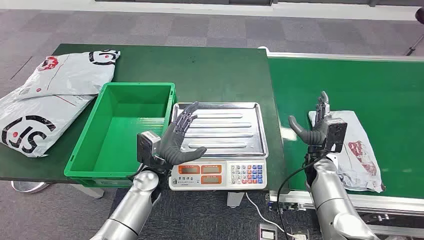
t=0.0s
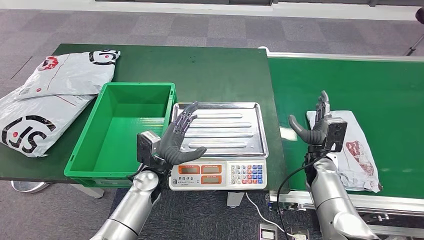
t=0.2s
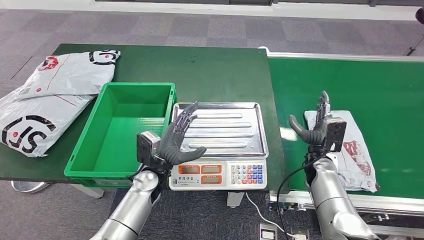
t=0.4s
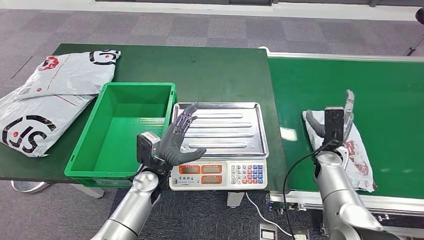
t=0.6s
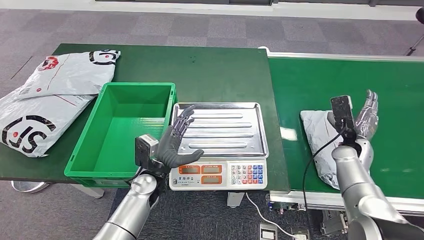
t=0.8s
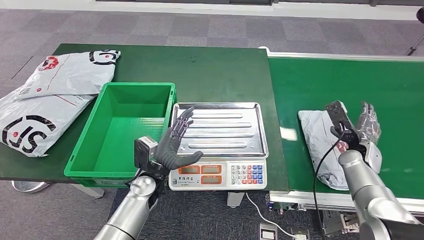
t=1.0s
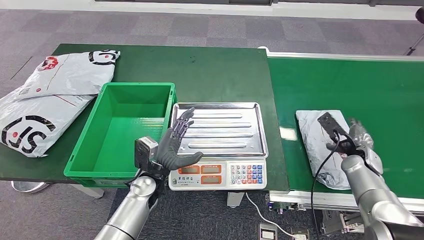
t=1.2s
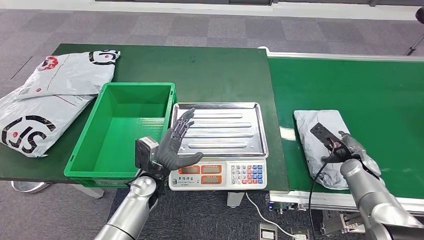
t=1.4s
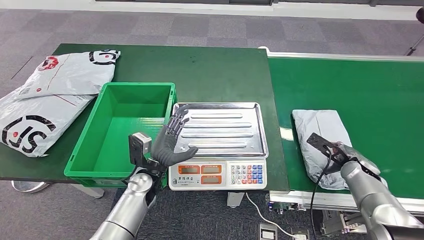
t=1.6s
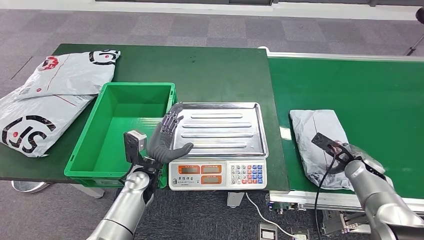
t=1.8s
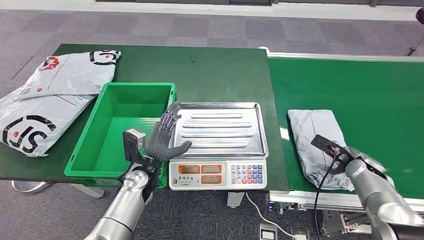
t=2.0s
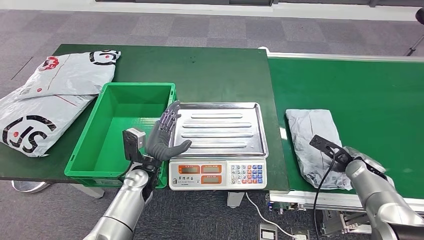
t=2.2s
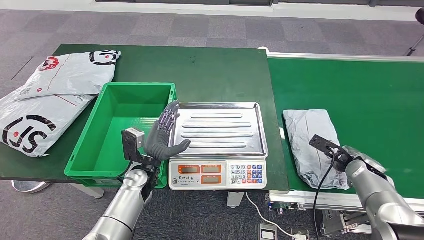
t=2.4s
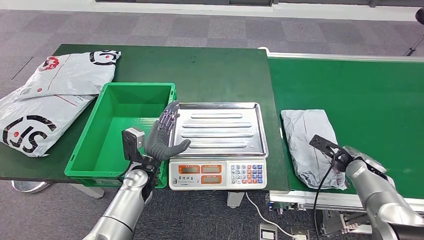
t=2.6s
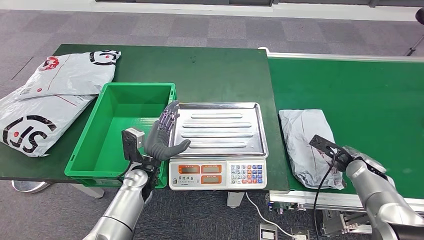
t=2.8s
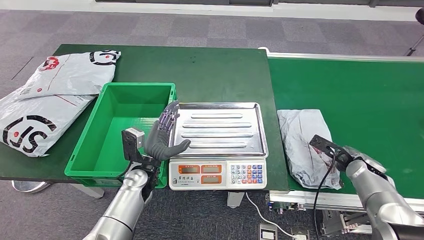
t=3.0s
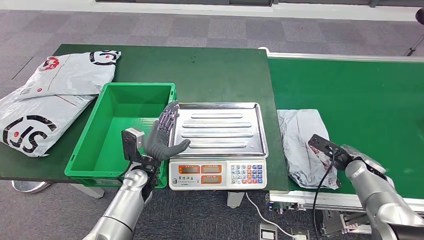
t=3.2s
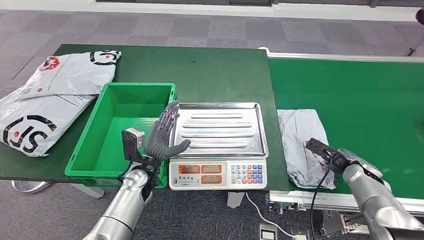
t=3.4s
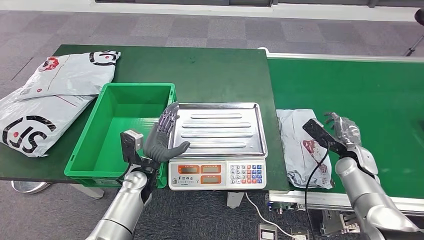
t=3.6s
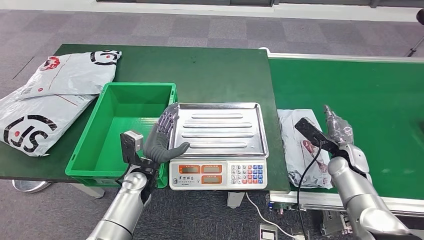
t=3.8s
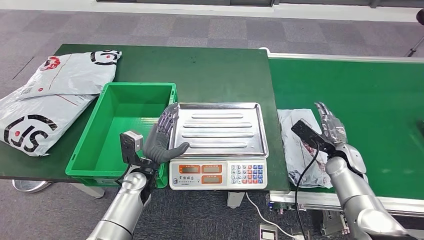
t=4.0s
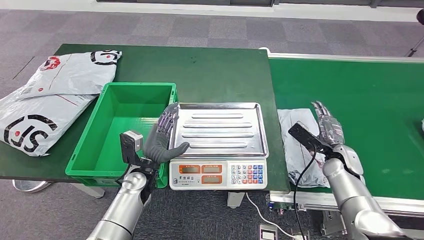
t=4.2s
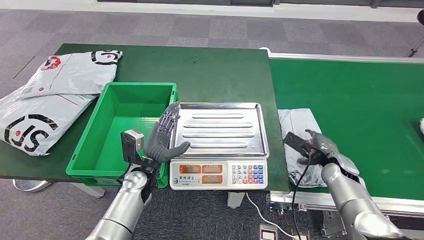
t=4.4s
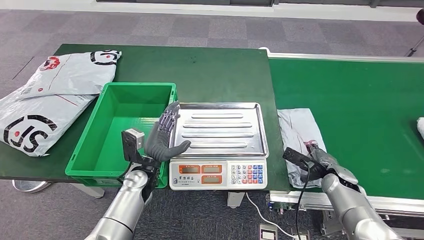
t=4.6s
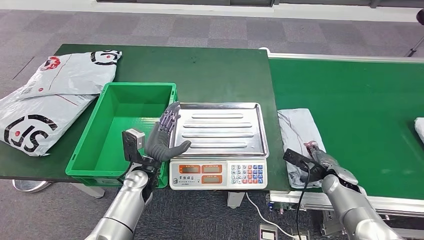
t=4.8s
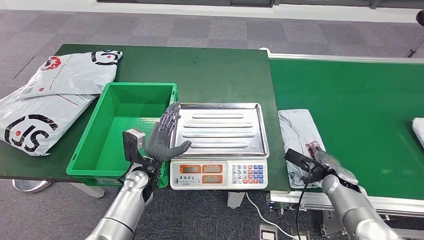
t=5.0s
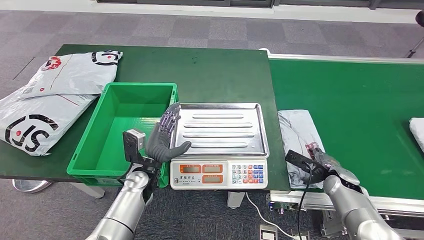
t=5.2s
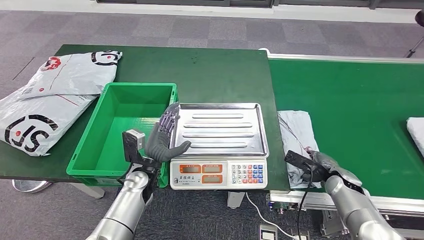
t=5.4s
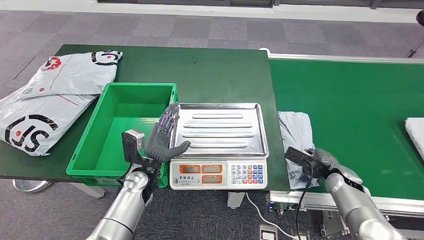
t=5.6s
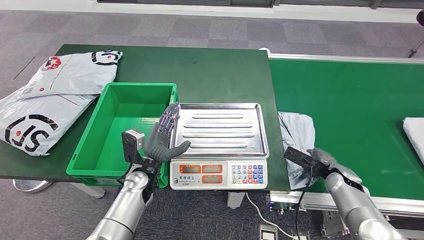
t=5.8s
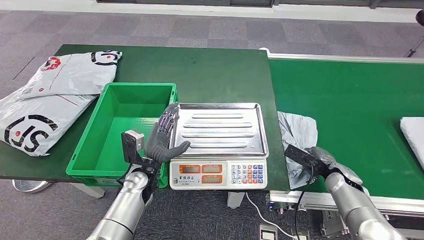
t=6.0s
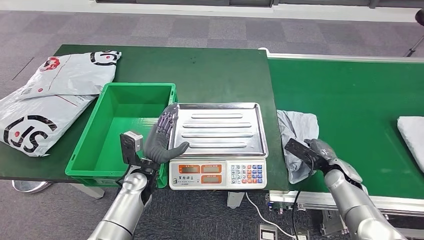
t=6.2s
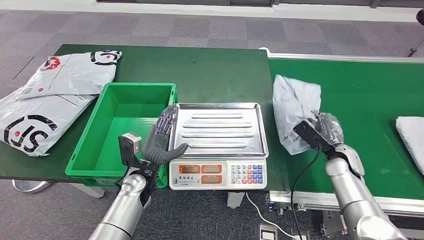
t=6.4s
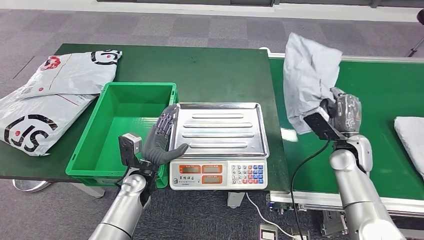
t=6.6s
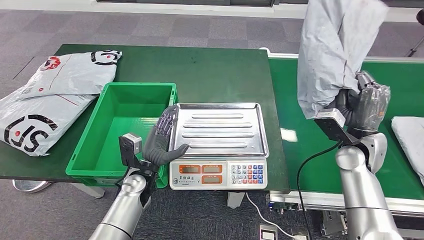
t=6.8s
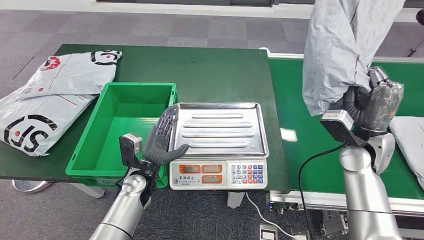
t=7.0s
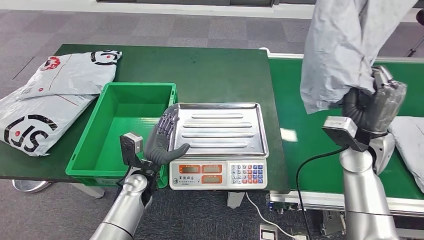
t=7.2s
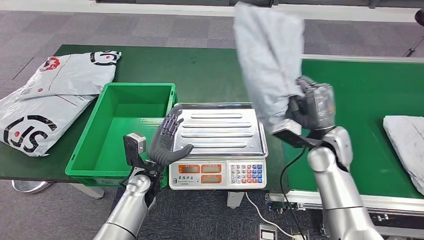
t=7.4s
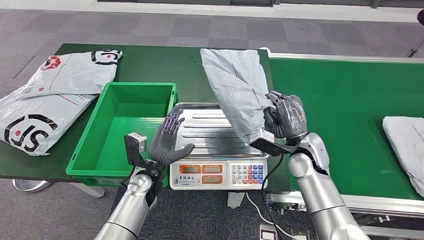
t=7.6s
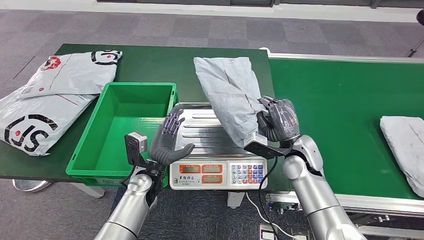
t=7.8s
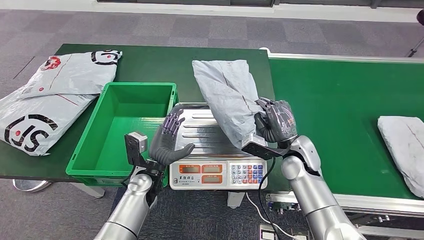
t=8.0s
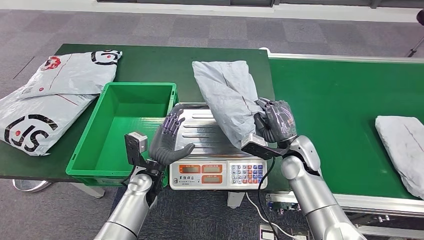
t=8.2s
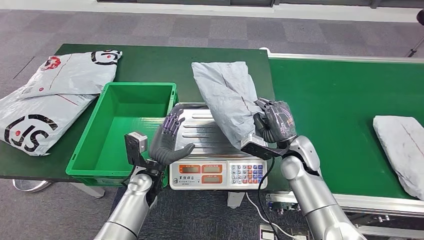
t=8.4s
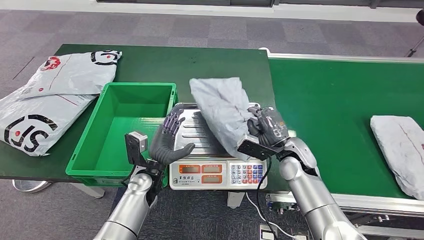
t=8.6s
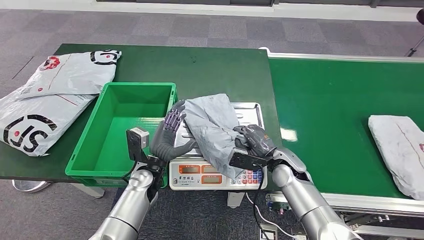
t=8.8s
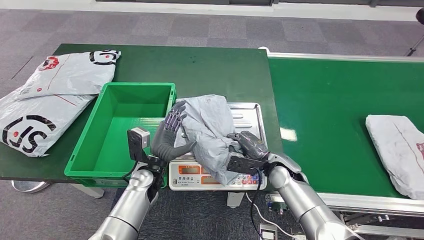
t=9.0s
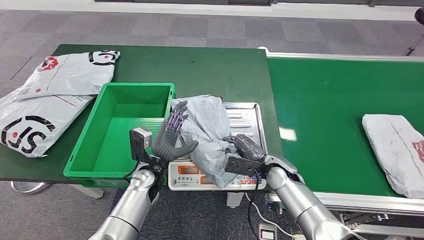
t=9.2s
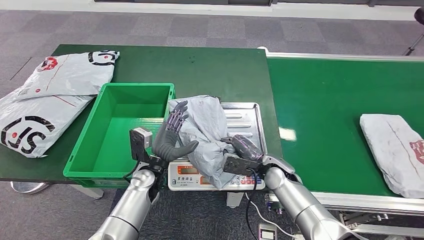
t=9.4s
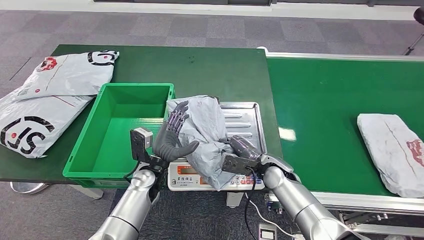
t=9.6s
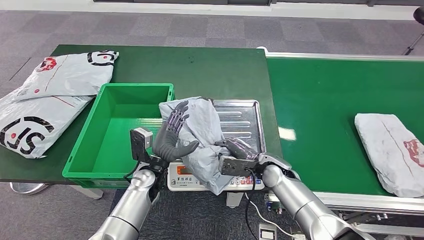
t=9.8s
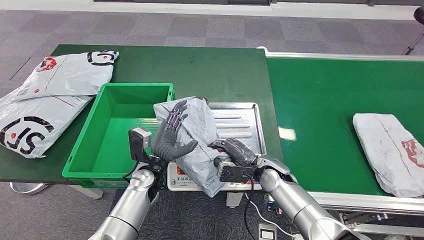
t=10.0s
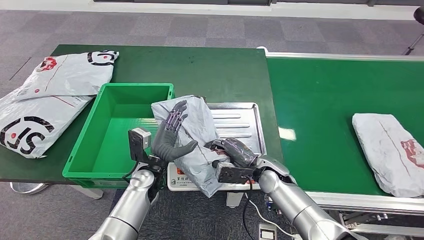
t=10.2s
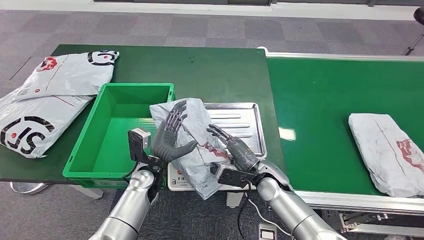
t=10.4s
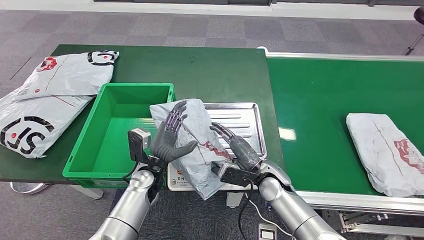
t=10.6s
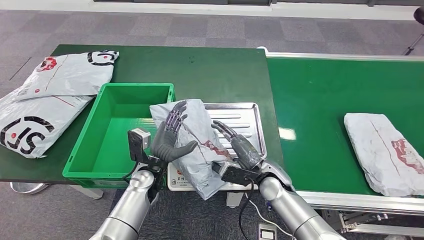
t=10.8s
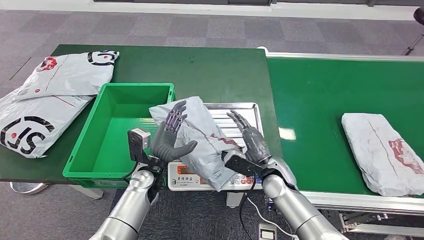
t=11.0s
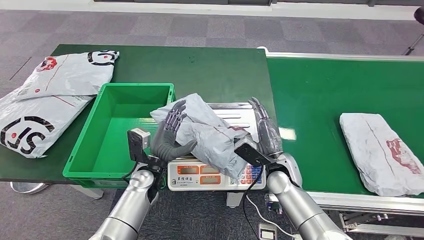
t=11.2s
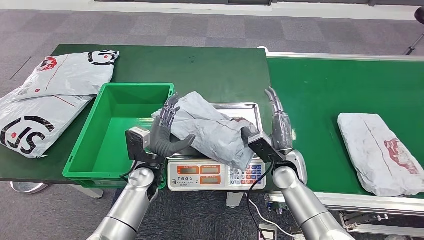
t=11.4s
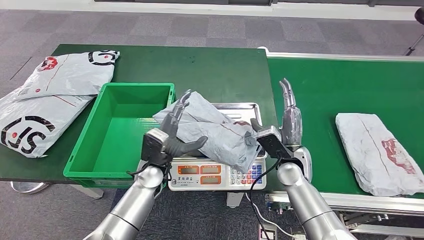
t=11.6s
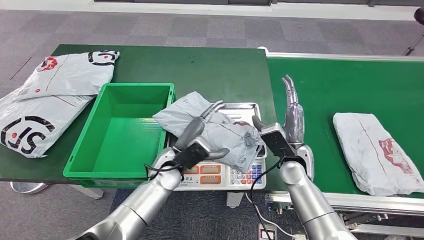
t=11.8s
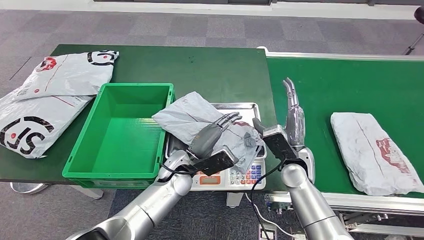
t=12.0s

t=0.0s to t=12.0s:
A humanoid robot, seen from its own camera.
Step, t=0.0s to t=6.8s: Take the parcel off the conveyor belt.
Step, t=7.0s to t=11.6s: Place the parcel onto the inbound machine.
t=1.6s to t=3.0s: The hands stay close to where they were, moving slightly.
t=3.0s to t=4.4s: The right hand moves to the left, some 5 cm.
t=9.0s to t=10.4s: The hands stay close to where they were, moving slightly.

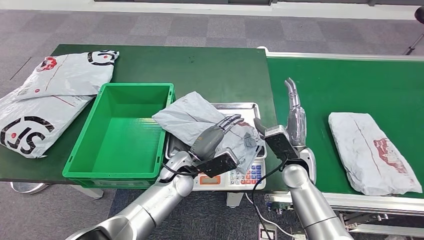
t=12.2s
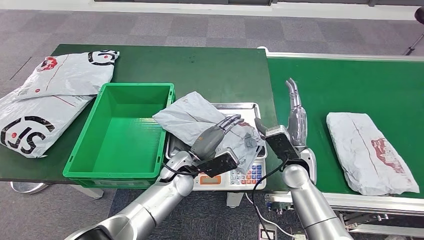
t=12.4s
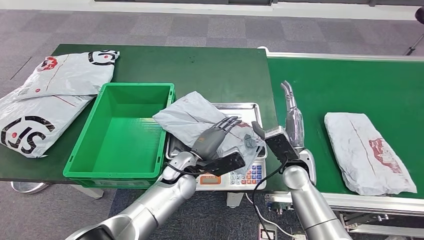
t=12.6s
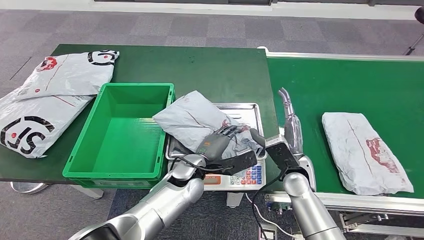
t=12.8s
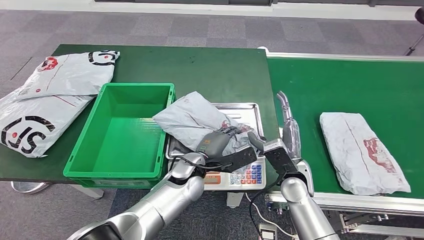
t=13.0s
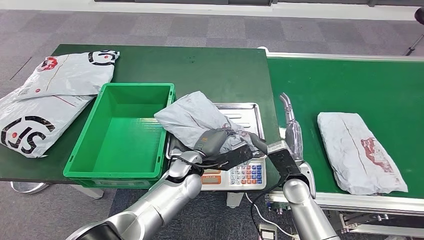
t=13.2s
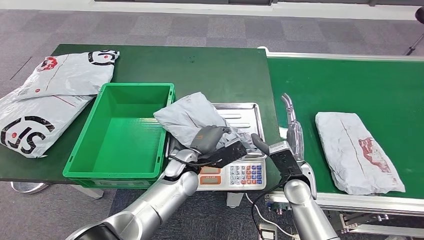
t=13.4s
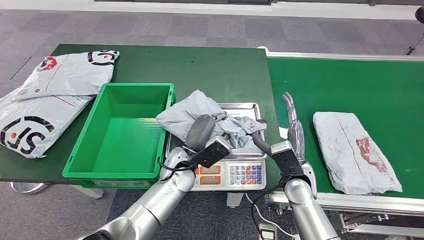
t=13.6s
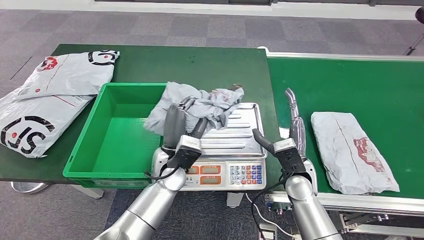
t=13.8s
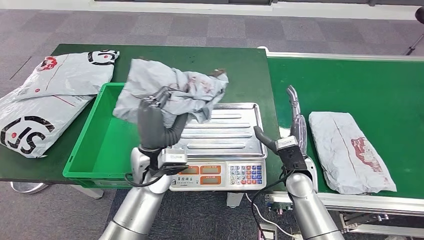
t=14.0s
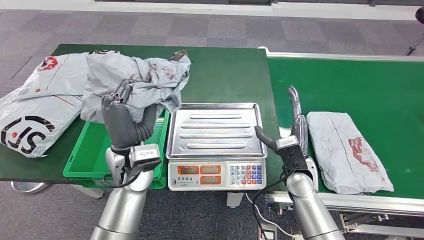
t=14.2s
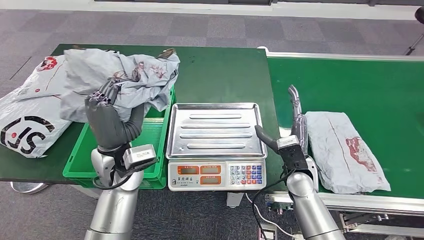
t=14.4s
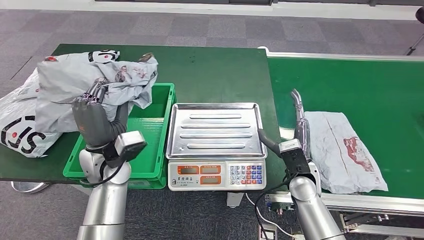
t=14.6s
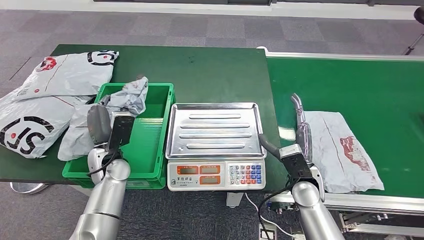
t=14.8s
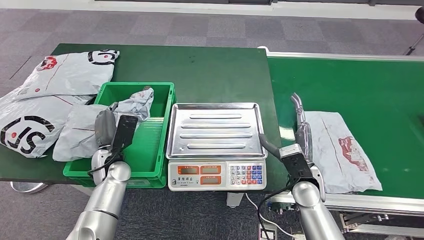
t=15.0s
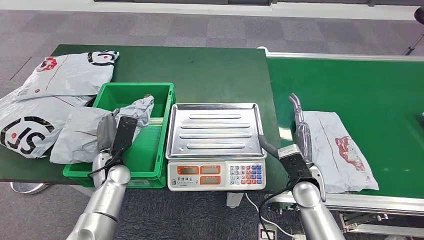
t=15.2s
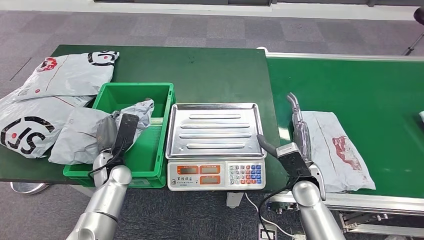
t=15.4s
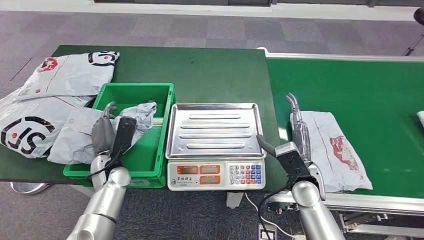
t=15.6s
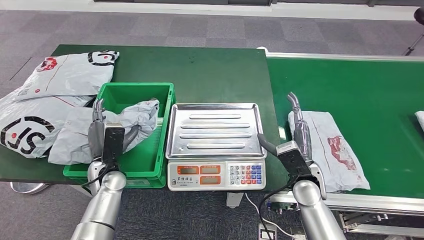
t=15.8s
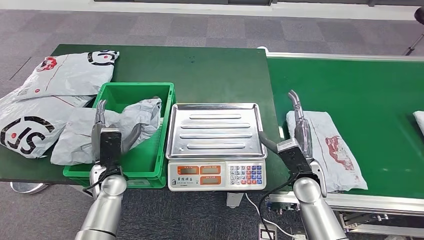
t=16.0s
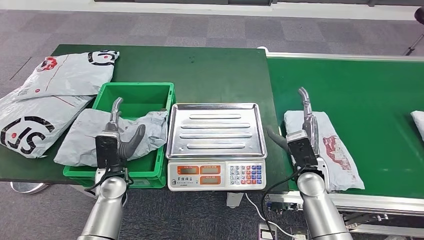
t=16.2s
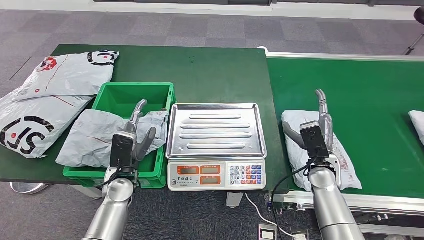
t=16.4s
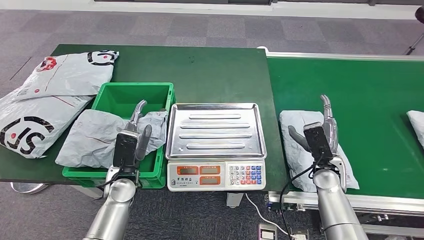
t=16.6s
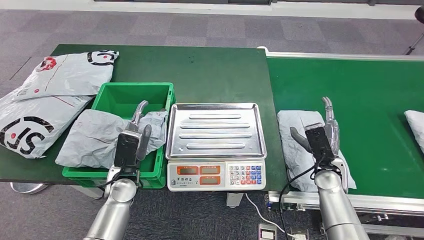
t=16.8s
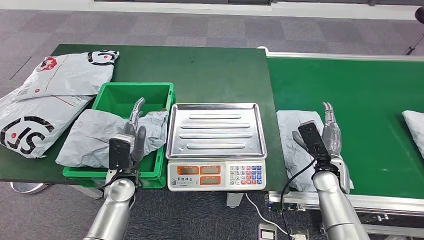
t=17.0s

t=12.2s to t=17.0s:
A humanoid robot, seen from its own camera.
Step, t=12.2s to t=14.4s: Pick up the parcel from the inbound machine.
Step, t=14.6s to t=17.0s: Put the parcel inside the courier box.
t=15.4s to t=17.0s: The right hand heads to the right, covering about 10 cm; the left hand is displaced to the right by about 5 cm.
